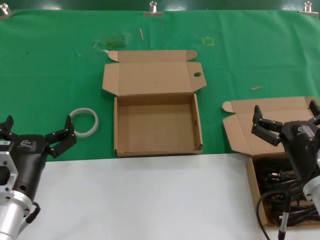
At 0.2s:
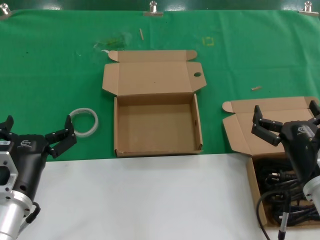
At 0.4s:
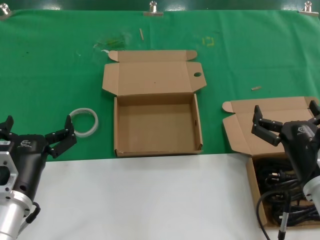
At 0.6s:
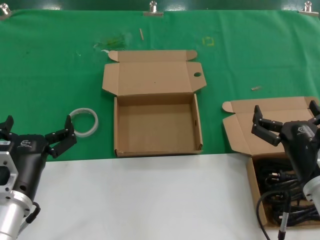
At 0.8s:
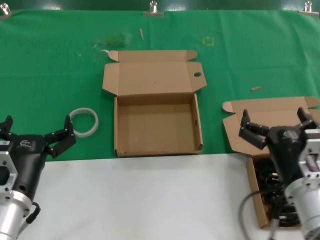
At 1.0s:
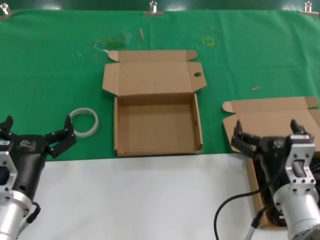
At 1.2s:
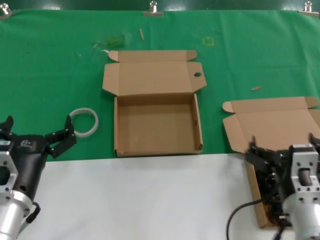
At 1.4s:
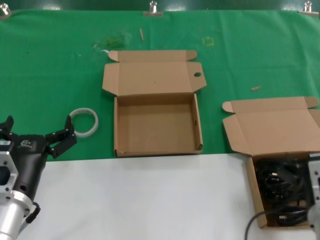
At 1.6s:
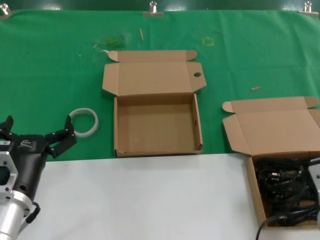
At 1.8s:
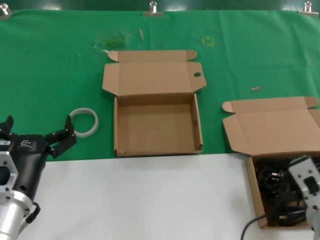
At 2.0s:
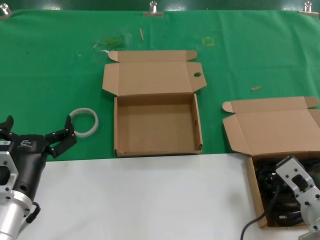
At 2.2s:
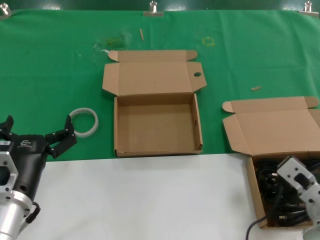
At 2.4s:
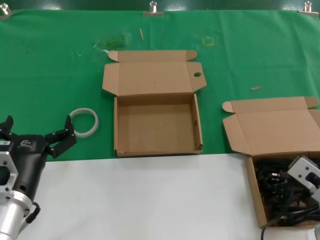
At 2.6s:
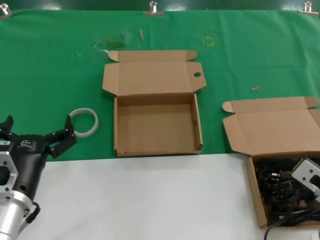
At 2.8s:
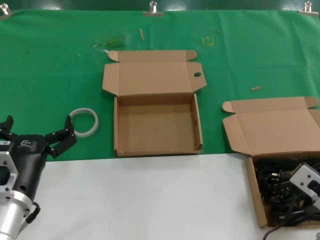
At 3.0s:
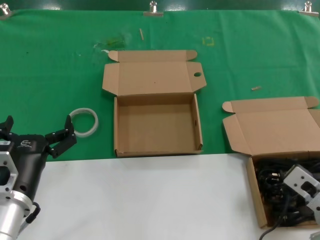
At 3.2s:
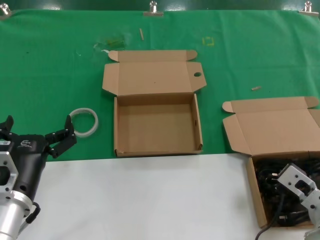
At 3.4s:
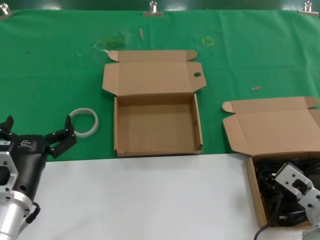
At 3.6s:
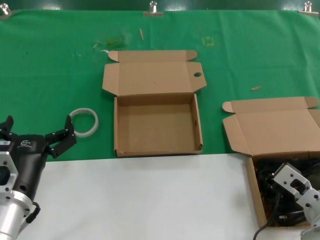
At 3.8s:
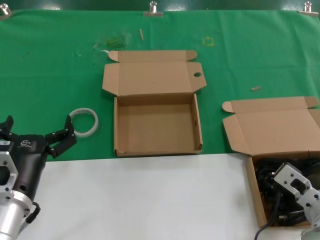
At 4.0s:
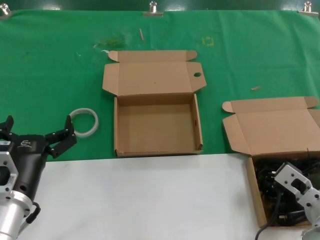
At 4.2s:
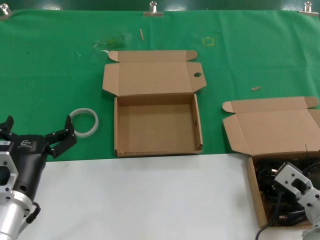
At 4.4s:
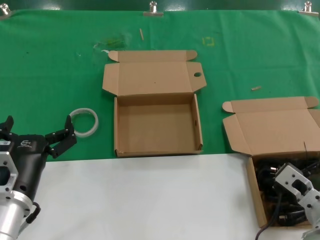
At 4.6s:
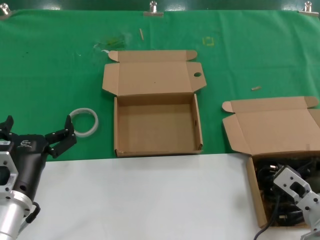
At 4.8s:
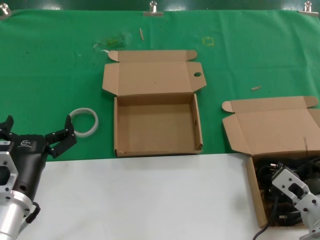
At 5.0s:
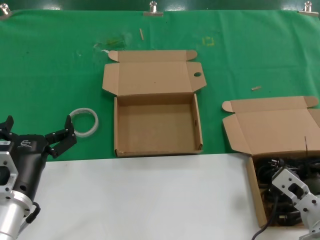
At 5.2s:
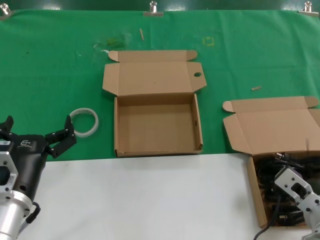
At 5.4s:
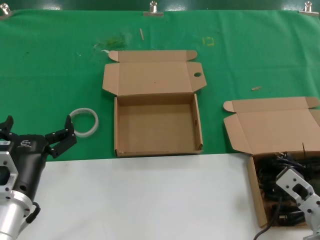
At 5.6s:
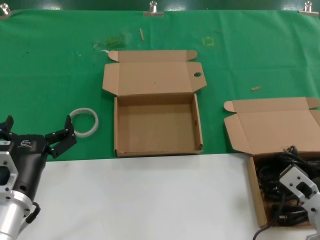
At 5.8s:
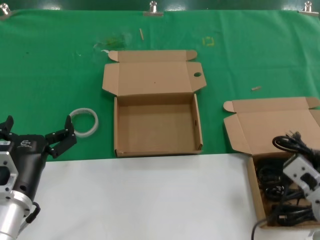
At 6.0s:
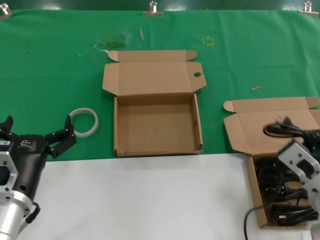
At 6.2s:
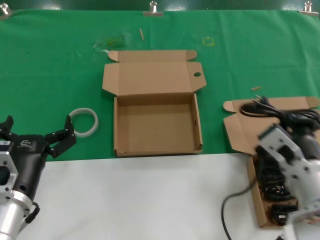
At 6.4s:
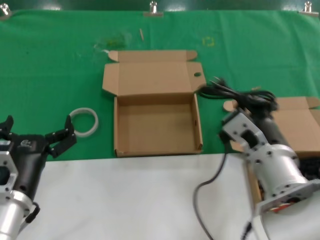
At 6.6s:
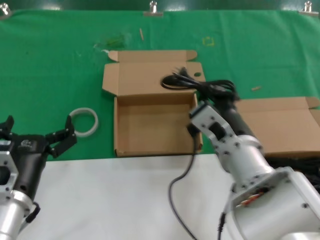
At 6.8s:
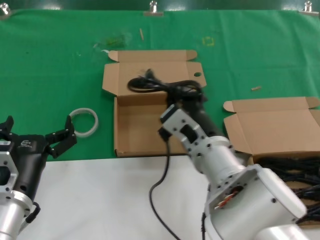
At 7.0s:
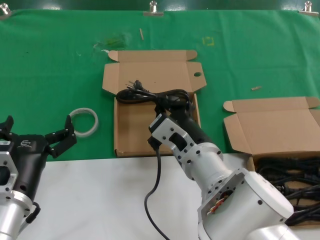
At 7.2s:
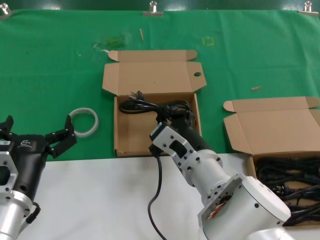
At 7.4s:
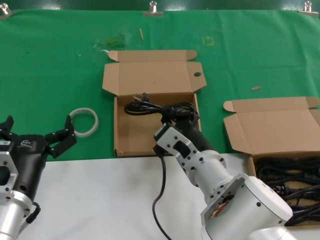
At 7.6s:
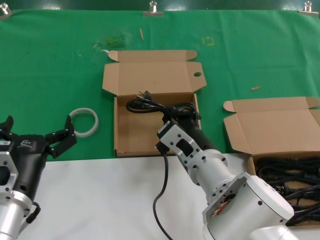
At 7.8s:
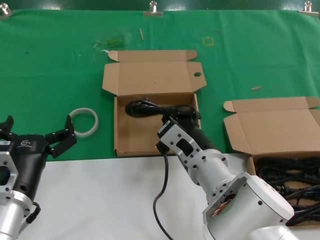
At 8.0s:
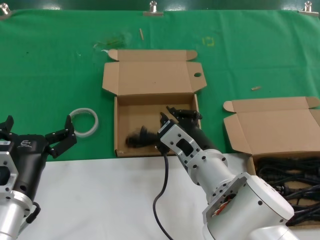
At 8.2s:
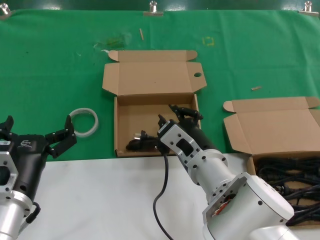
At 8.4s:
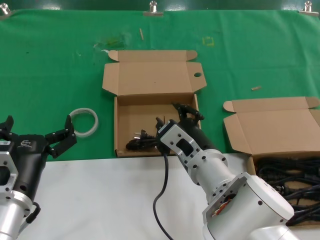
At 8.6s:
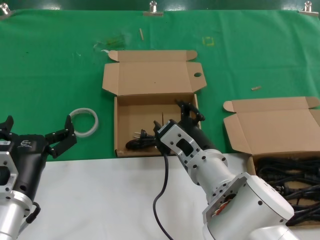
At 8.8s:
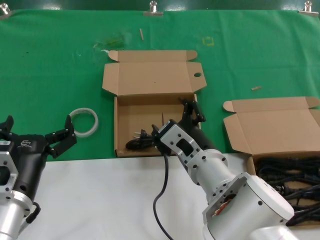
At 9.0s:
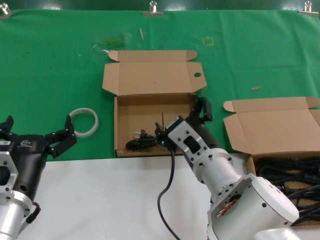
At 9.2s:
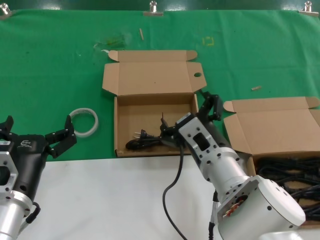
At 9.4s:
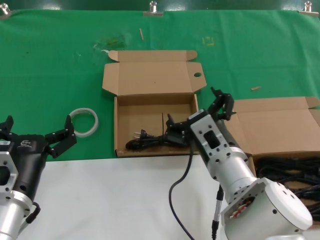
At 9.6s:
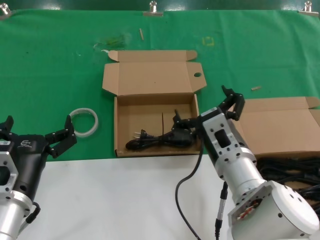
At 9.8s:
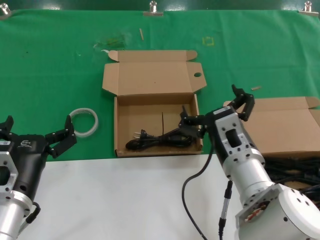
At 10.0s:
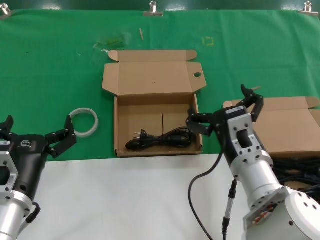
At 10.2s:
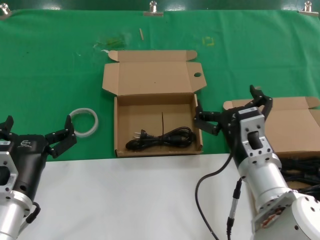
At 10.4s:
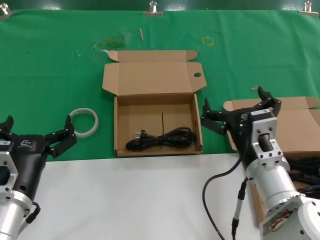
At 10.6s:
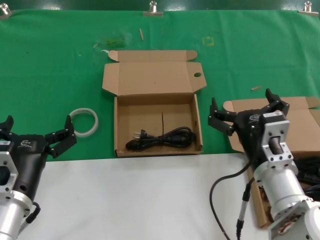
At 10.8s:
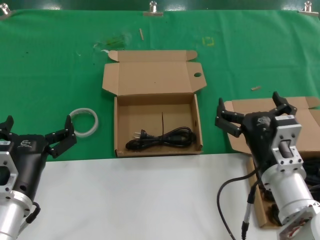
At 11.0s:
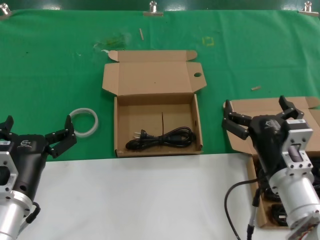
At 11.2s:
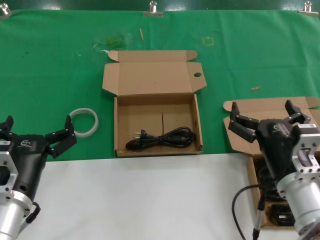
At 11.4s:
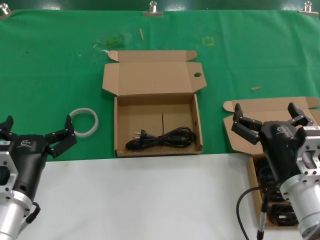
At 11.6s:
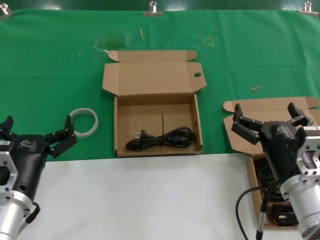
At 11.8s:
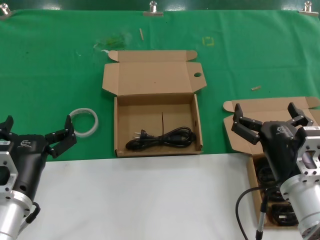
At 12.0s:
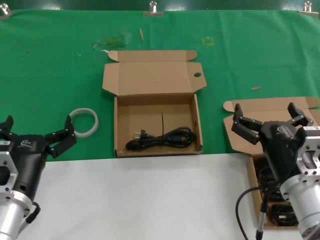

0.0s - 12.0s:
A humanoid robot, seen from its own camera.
Task of the whole recording: take the parts from the box containing them and put them into an empty box.
Step, 0.0s - 4.6s: Grasp the data cable.
Step, 4.8s - 8.0s: Place the data cable in the another box.
0.0s - 1.6s: The right hand changes place by roughly 5 cm.
3.0s - 4.4s: The hands move only a little.
4.4s - 6.0s: The right hand moves upward, approximately 5 cm.
6.0s - 7.6s: The right hand moves to the left and forward, about 15 cm.
7.6s - 9.0s: Neither hand changes place.
9.0s - 10.4s: The right hand is displaced to the right by about 10 cm.
10.4s - 12.0s: The right hand heads to the right, covering about 5 cm.

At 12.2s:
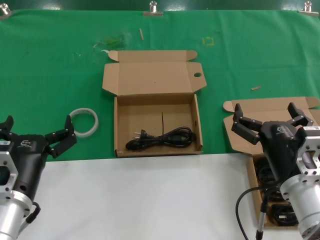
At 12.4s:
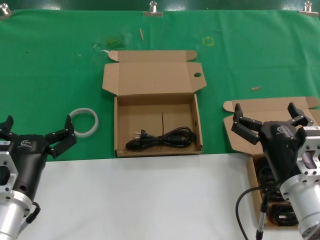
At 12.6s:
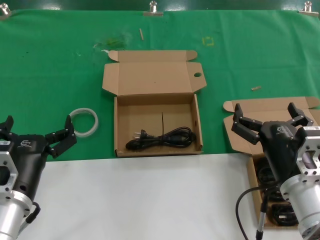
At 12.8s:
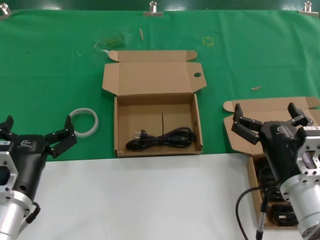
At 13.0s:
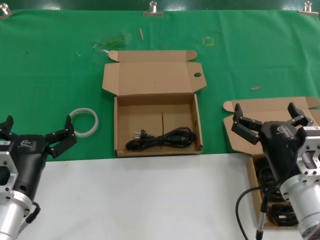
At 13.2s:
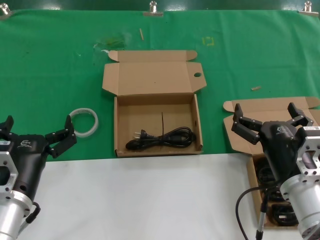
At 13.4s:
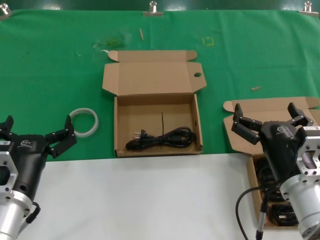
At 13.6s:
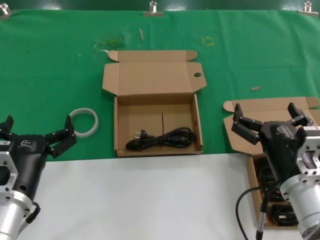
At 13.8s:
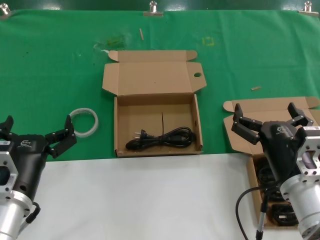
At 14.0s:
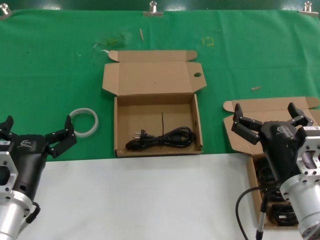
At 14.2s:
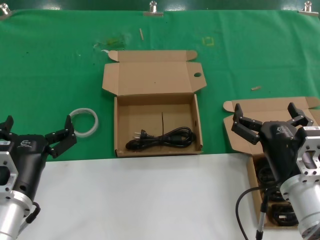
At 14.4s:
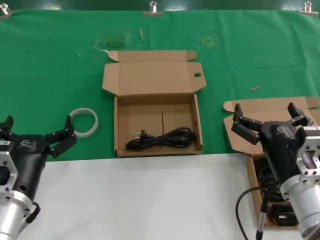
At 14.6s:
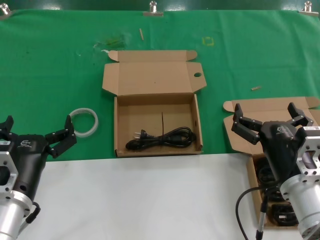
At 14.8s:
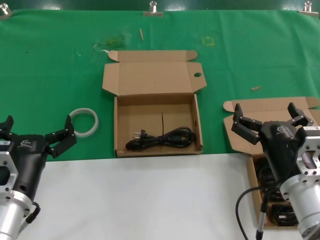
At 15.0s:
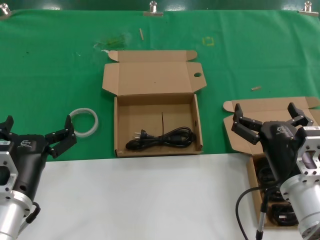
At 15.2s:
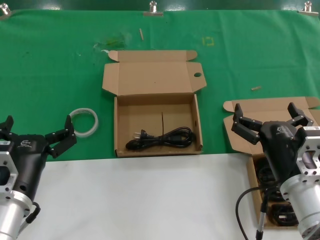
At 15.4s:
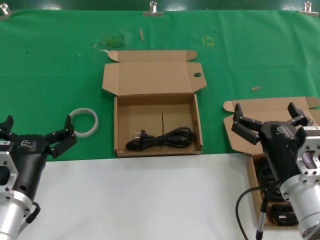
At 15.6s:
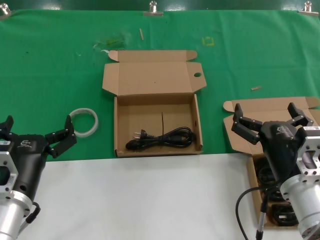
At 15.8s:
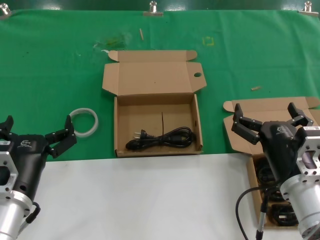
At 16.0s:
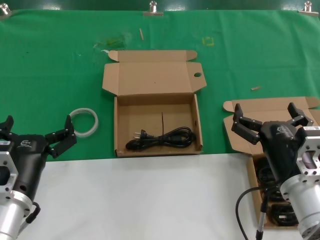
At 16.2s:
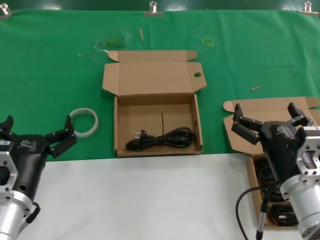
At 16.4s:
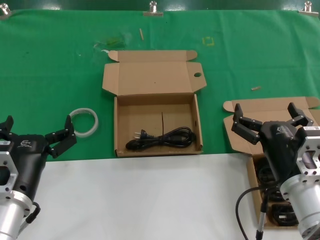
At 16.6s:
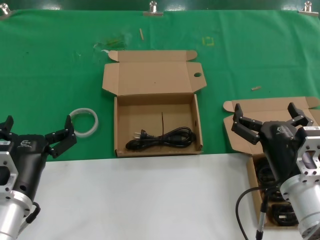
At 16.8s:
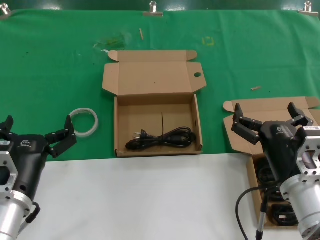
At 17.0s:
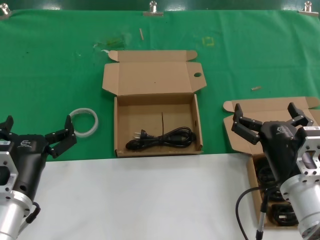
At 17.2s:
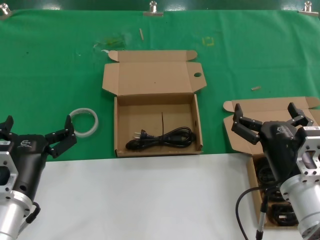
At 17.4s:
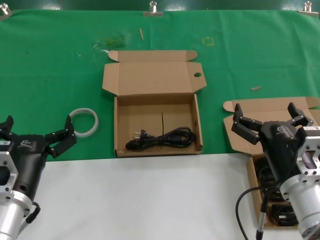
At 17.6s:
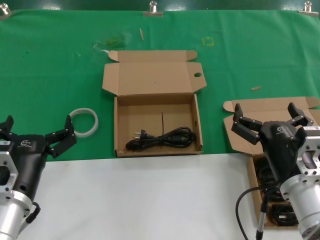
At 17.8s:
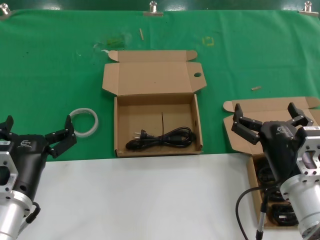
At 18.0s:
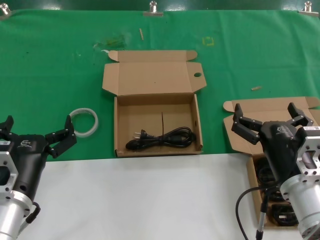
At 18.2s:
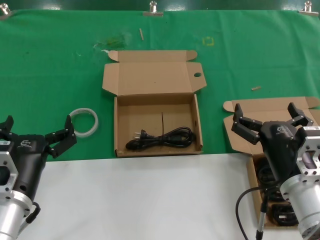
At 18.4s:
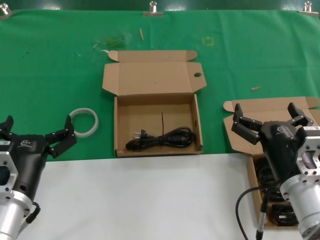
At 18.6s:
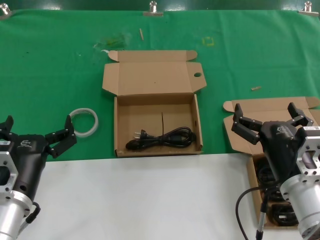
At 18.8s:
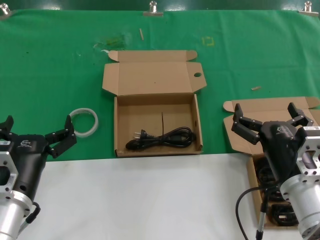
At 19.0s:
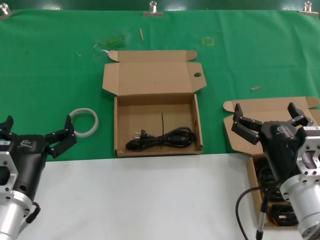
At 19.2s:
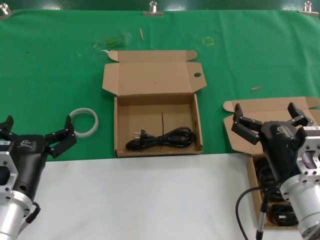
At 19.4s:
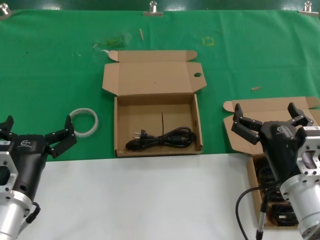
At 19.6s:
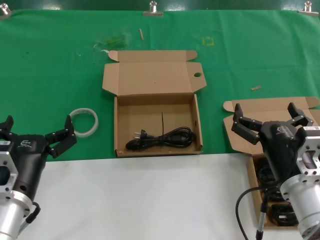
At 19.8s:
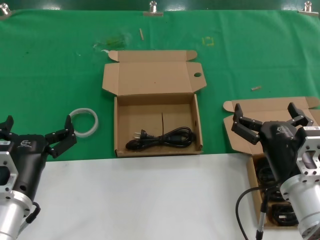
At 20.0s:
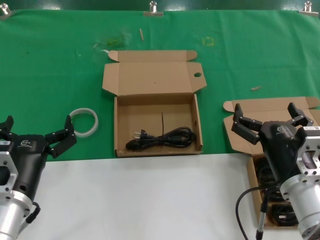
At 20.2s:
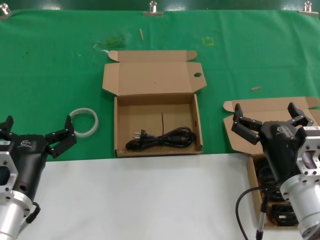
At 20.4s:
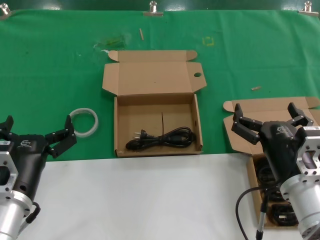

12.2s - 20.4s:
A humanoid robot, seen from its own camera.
Task of the whole recording: take the parts from the box containing them and put them into an empty box.
12.2s - 20.4s: The two hands keep their place.

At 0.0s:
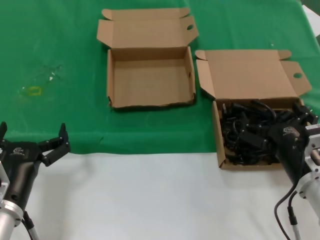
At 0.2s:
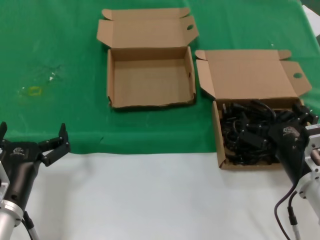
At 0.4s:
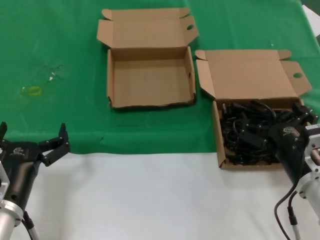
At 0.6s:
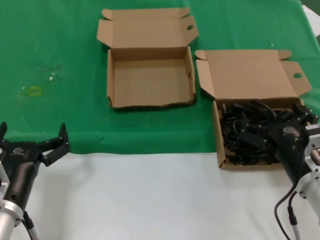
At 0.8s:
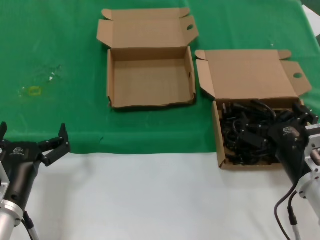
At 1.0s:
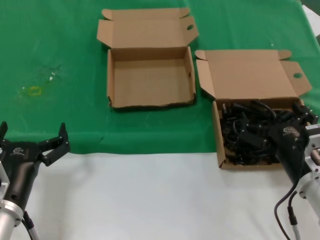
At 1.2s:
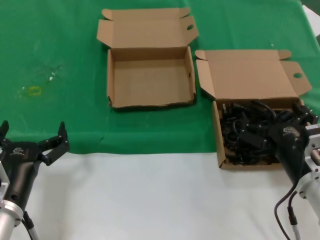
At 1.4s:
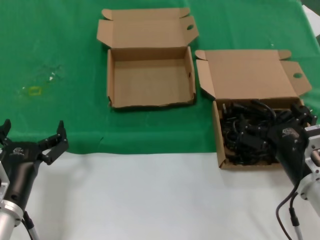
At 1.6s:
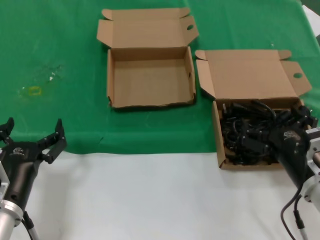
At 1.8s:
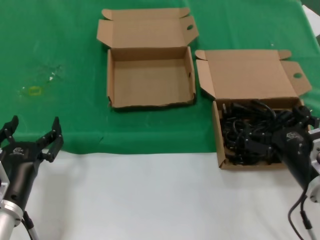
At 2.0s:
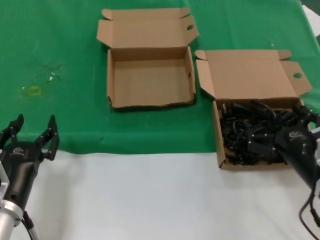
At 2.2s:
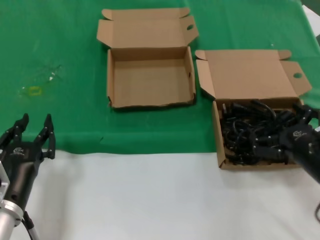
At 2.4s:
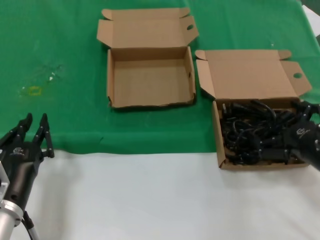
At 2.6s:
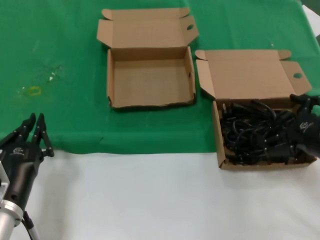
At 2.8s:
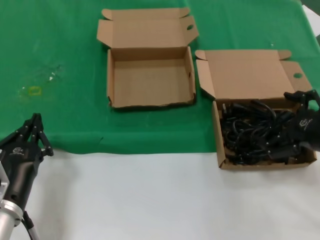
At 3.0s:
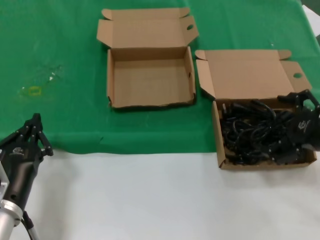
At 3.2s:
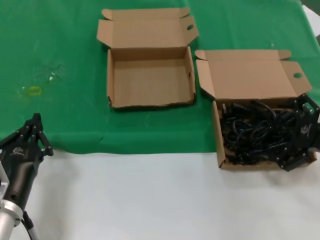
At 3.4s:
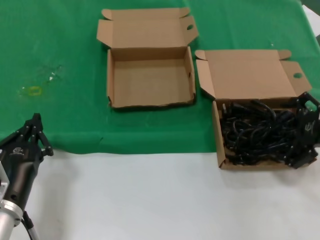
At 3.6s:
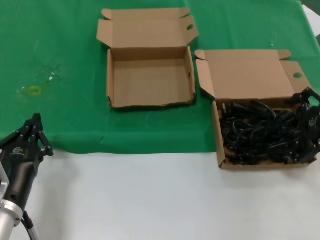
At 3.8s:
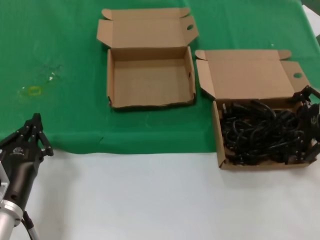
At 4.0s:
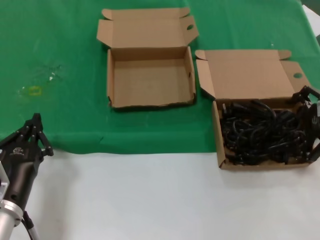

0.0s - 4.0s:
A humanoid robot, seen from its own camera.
Task of the whole recording: take the parts from the box containing them and put them into an empty box.
0.0s - 1.4s: The two hands keep their place.
1.4s - 2.6s: The right hand goes approximately 10 cm to the right and upward.
2.6s - 4.0s: The right hand heads forward, upward and to the right, covering roughly 15 cm.
